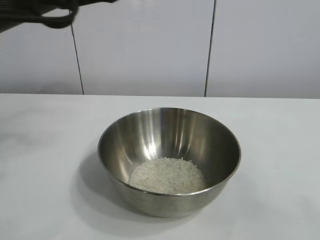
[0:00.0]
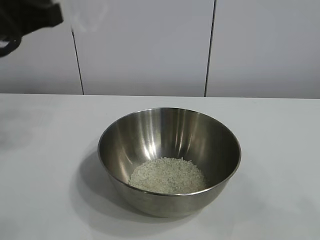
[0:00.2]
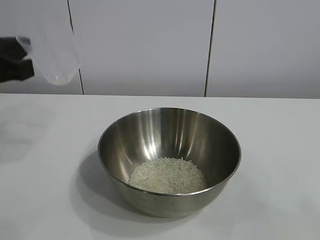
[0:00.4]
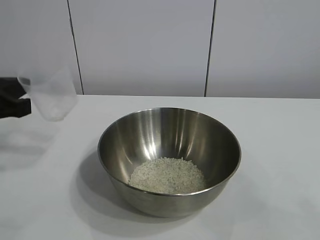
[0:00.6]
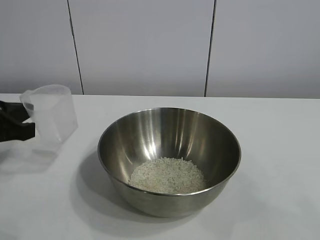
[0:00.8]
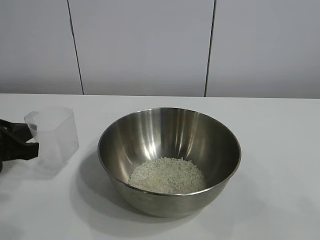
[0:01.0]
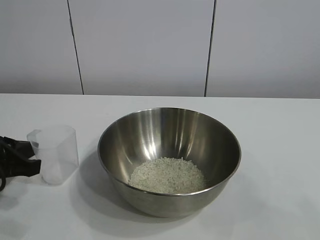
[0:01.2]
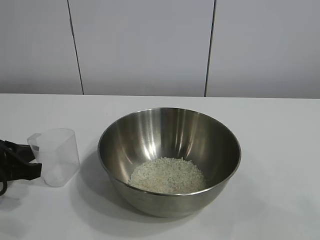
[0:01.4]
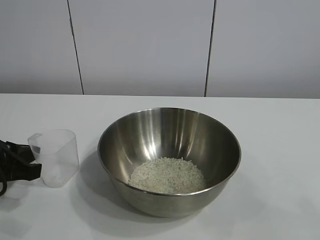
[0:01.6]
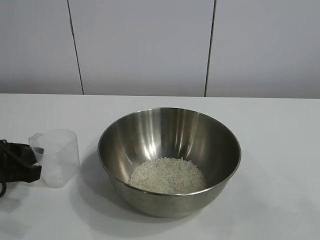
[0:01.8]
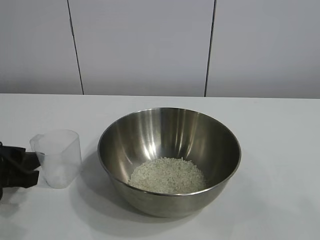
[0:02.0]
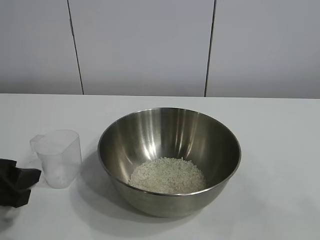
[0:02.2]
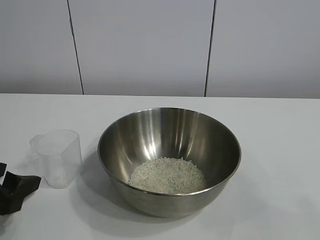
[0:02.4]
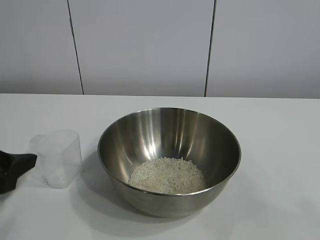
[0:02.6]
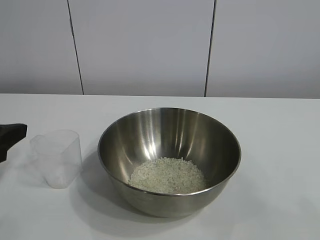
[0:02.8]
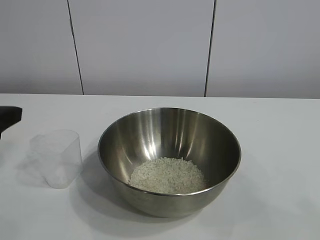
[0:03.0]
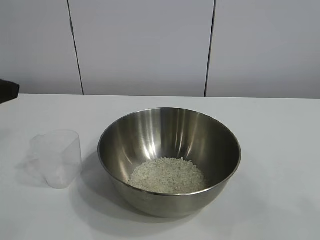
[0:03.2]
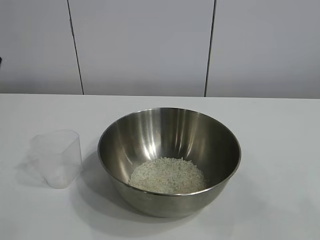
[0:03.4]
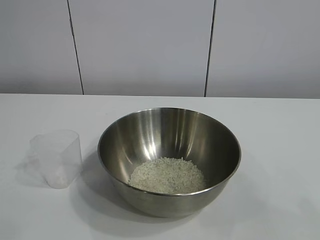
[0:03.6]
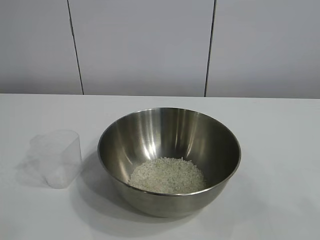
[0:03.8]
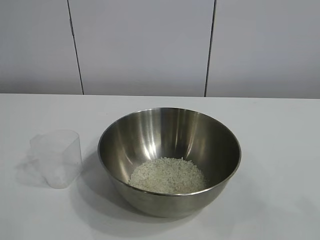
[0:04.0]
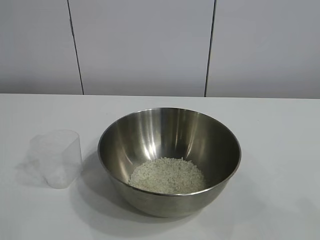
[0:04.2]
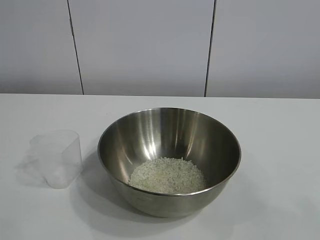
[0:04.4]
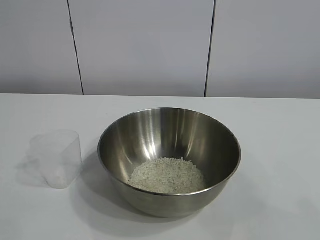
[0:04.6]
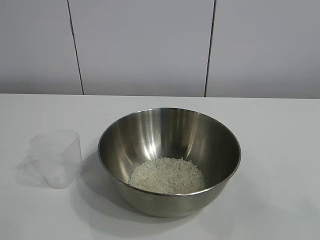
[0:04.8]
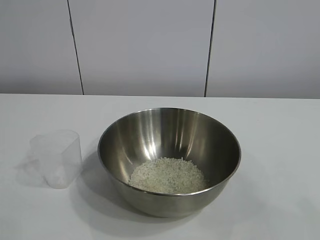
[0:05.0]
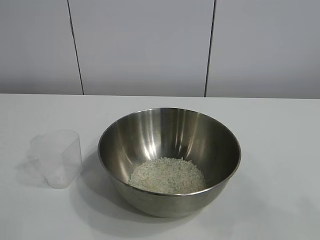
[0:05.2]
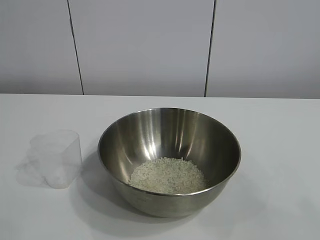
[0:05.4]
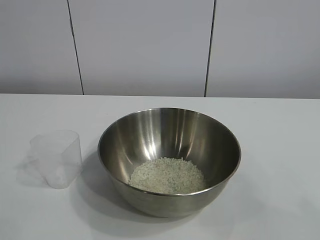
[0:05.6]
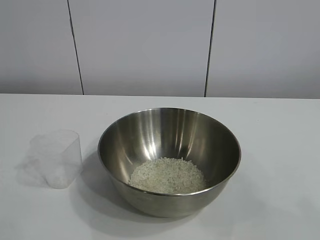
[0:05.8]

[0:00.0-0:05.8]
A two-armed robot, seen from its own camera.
Task of the whole recording: the right gripper grasp the rice container and place it in the center of the table, the left gripper grasp the rice scoop and pour the rice into the rice container.
Step, 0:00.0 to 0:01.6: Place the cup on the table with the left gripper.
